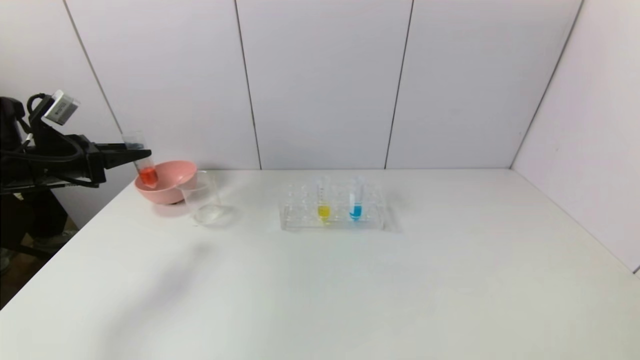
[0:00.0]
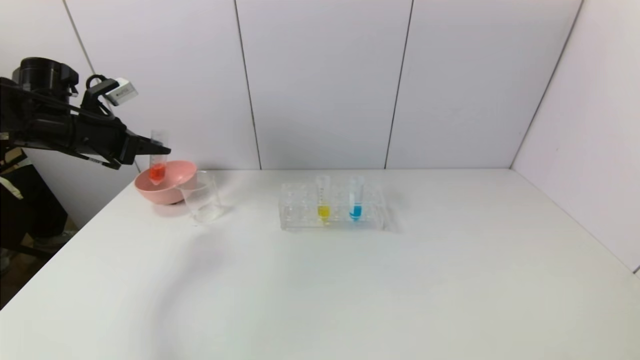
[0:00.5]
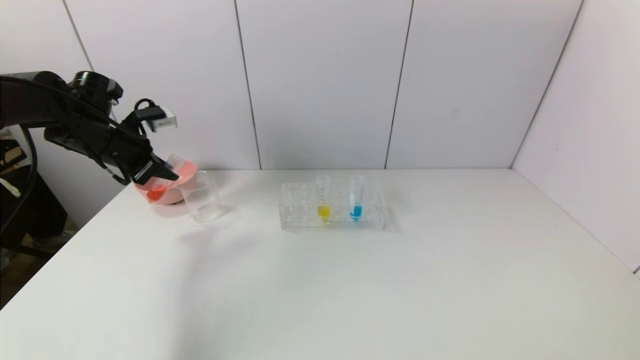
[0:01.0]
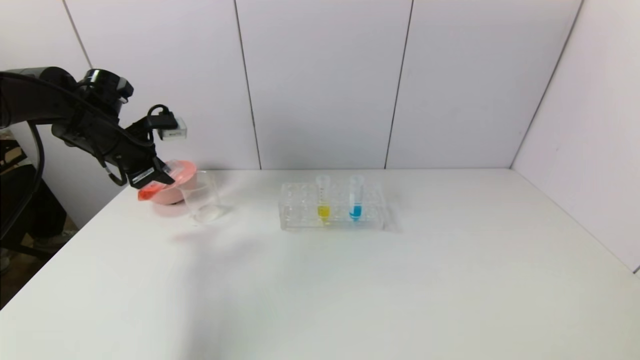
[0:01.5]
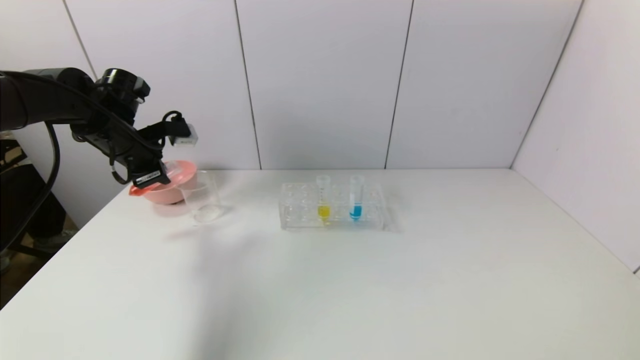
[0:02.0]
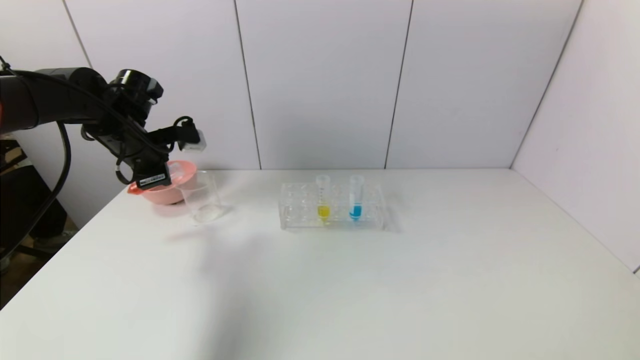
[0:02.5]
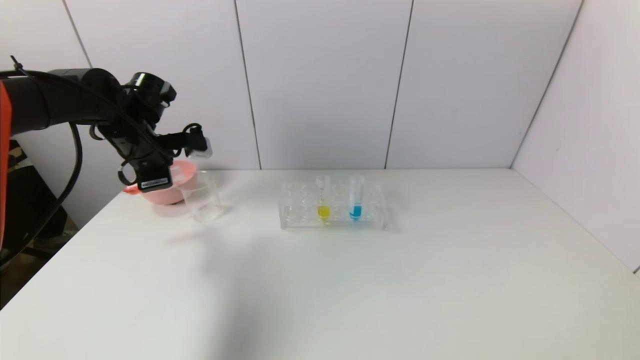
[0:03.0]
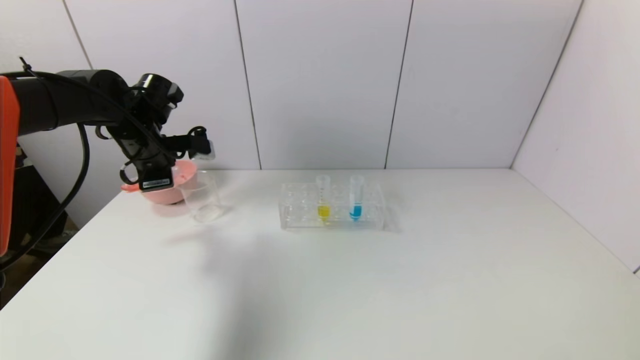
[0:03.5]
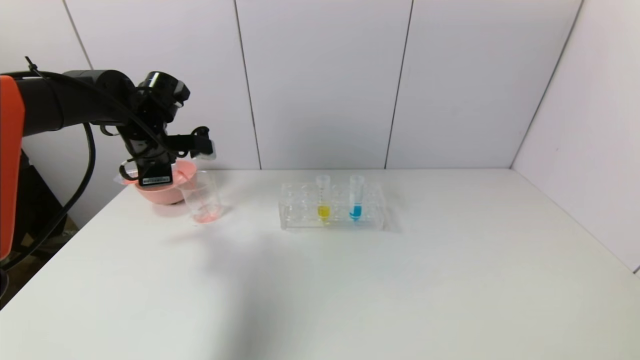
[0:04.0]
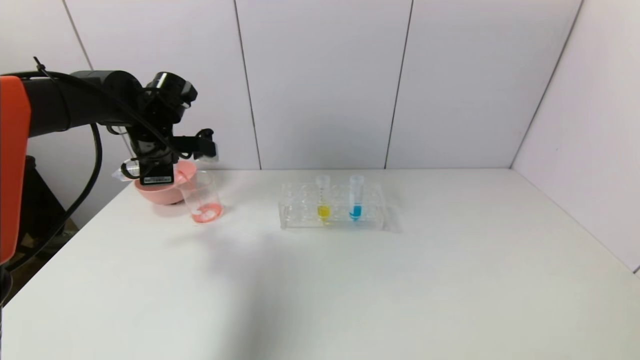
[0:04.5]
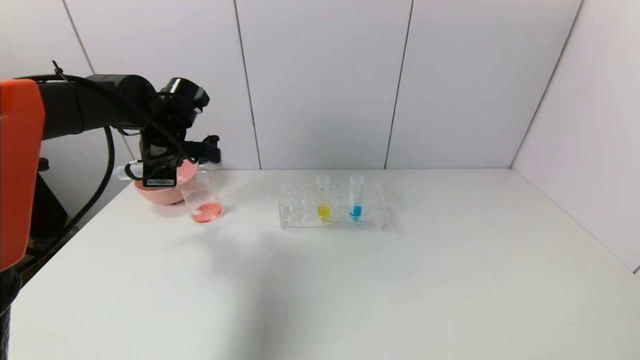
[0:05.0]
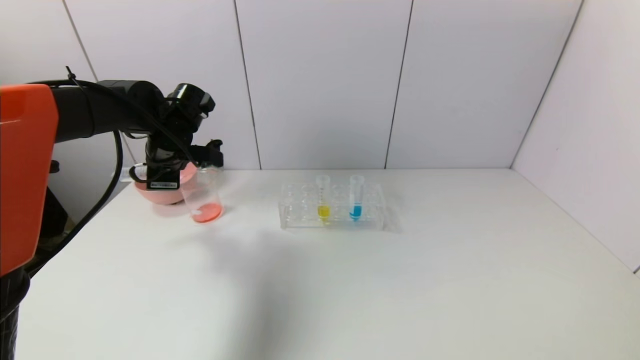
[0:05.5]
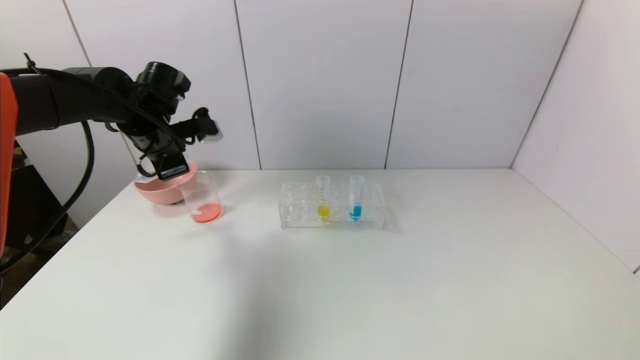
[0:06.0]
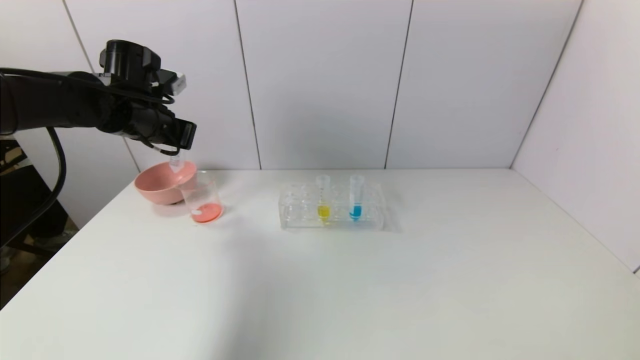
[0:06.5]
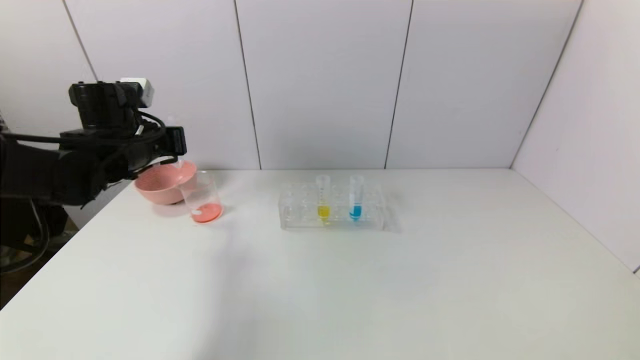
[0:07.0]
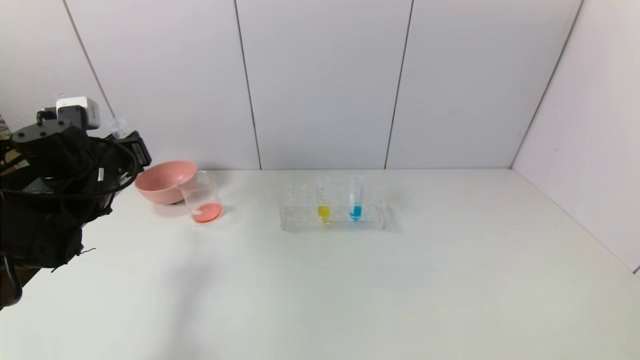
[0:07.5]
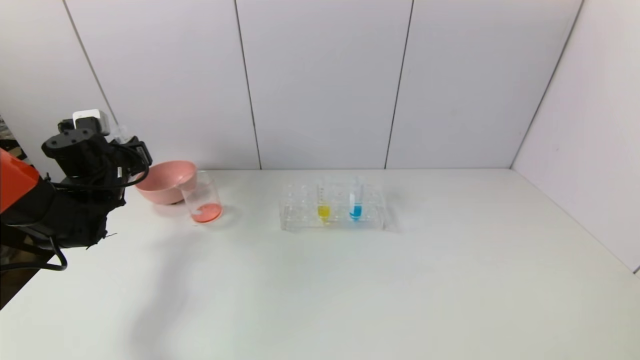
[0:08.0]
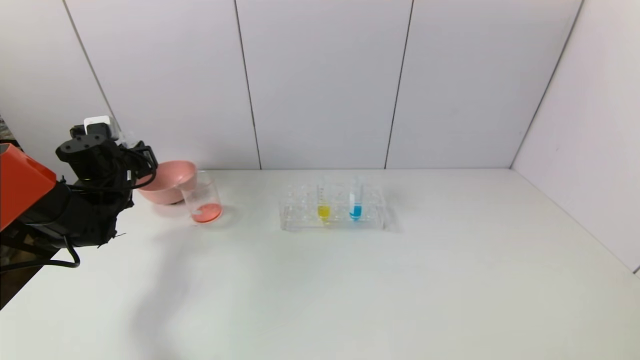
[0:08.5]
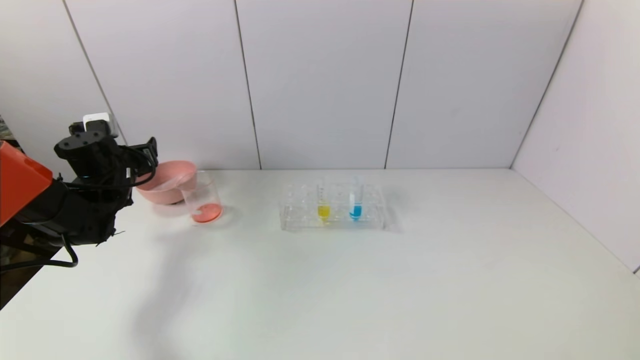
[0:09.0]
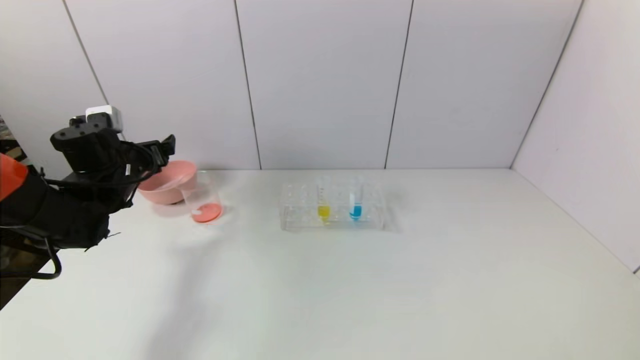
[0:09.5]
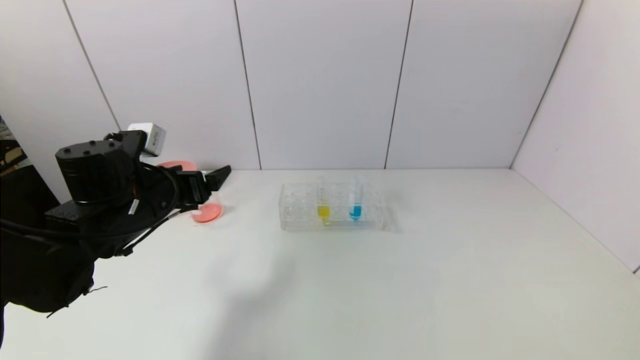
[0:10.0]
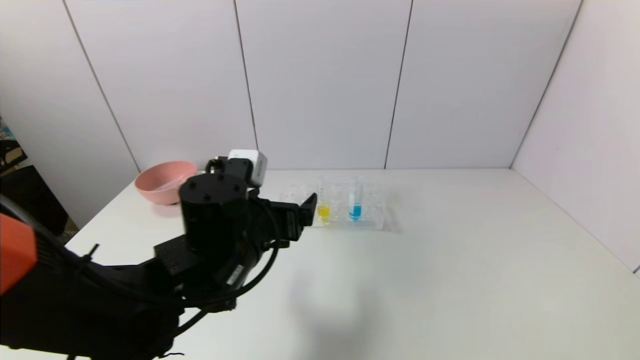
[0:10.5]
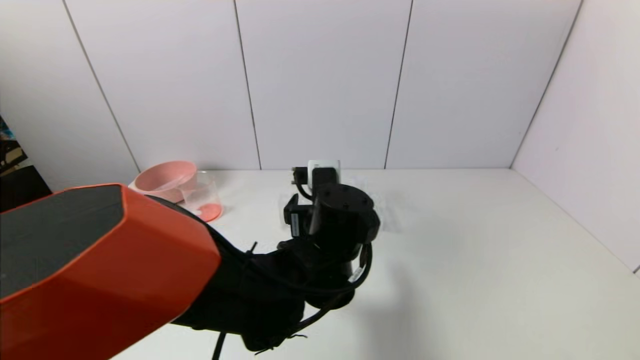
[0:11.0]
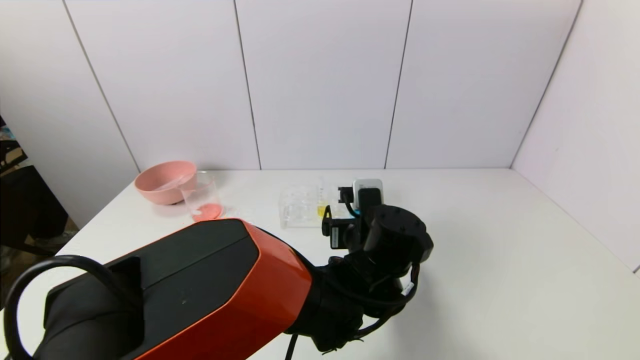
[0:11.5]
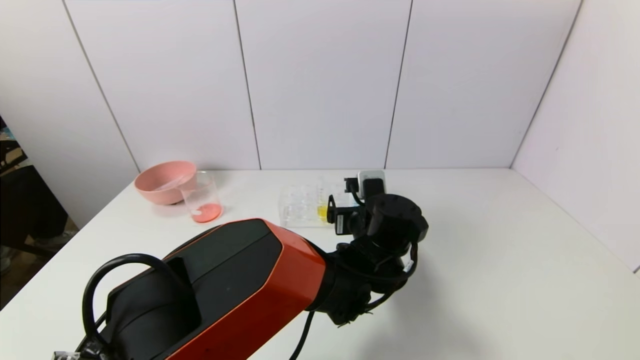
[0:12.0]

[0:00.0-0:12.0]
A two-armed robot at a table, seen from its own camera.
Task of the whole recording: pick up the test tube with red pigment and the test tube with blue pigment by grippers and pour them into the container.
Step, 0:00.0 to 0:05.5: Pour the red reagent into the graduated cylinder with the left gripper.
Step, 0:06.0 to 0:08.5: Place the test tube into the bowl with the left gripper.
0:00.0 to 0:02.0: The left gripper goes about 10 cm to the right and forward.
0:04.0 to 0:06.0: The grippers stay close to where they were, moving slightly.
0:06.0 to 0:08.0: The left gripper goes approximately 15 cm to the left and downward.
0:08.0 to 0:10.0: The left gripper shifts about 15 cm to the right and backward, and opens up.
0:10.0 to 0:12.0: The left gripper goes roughly 30 cm to the right.

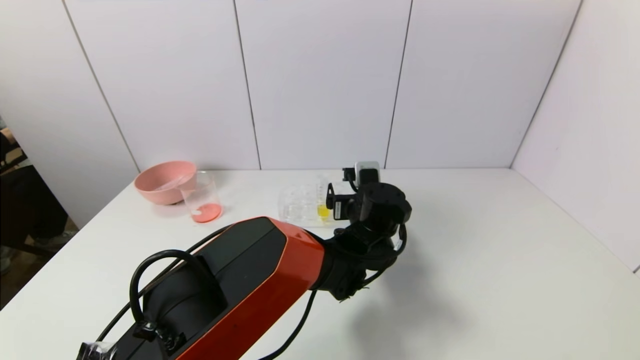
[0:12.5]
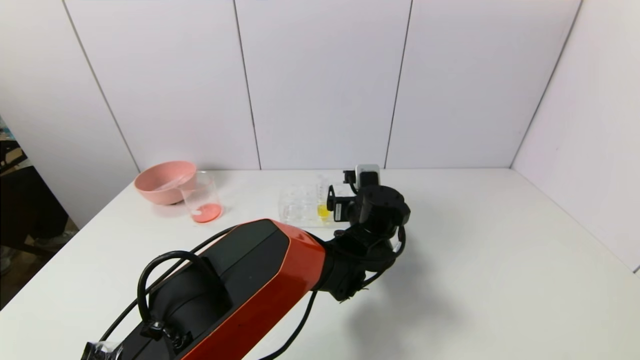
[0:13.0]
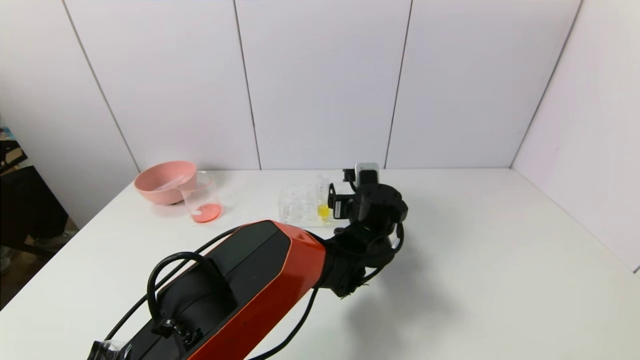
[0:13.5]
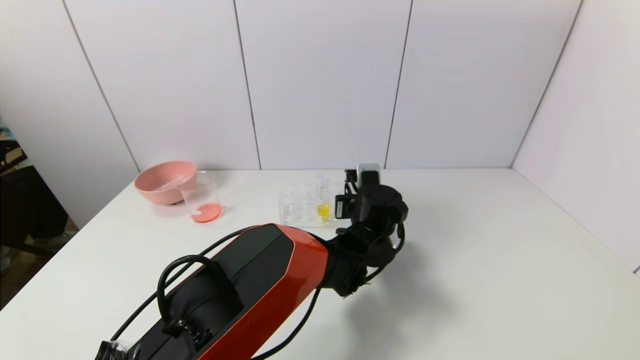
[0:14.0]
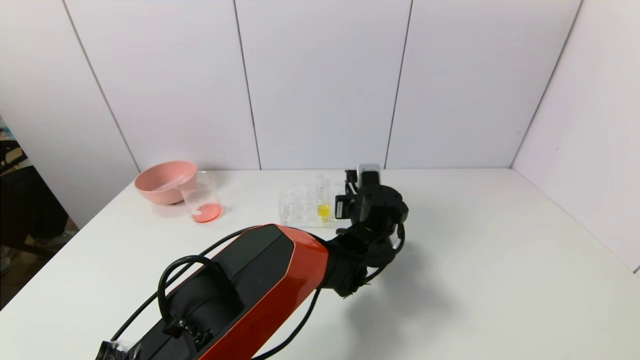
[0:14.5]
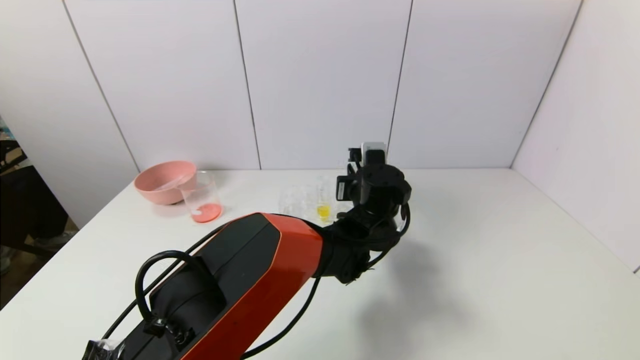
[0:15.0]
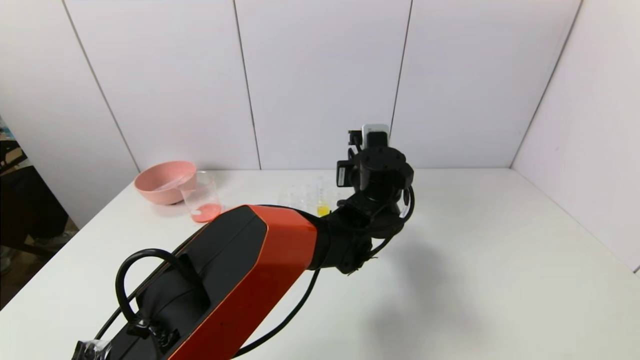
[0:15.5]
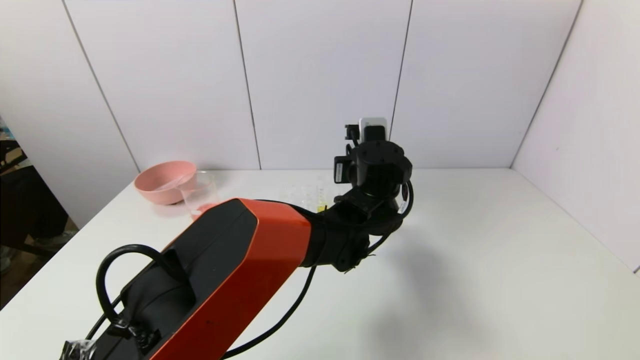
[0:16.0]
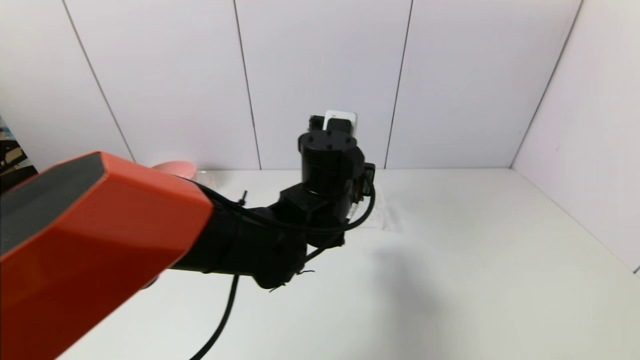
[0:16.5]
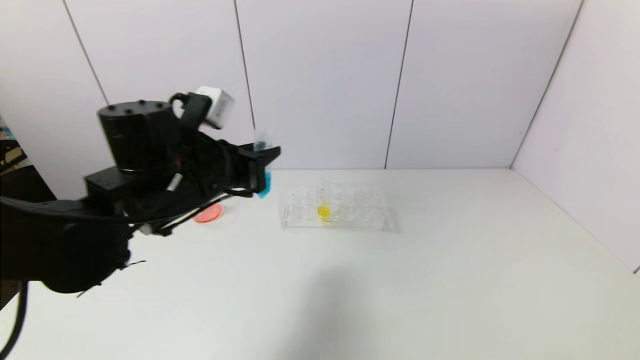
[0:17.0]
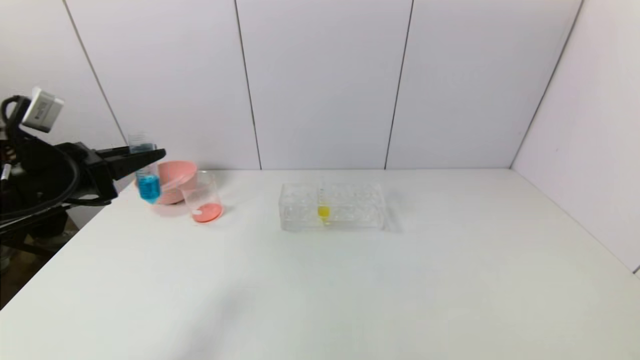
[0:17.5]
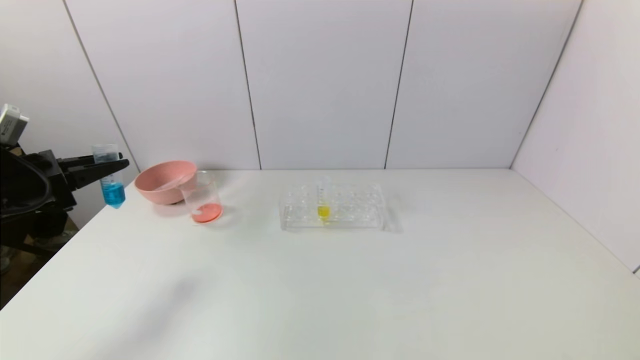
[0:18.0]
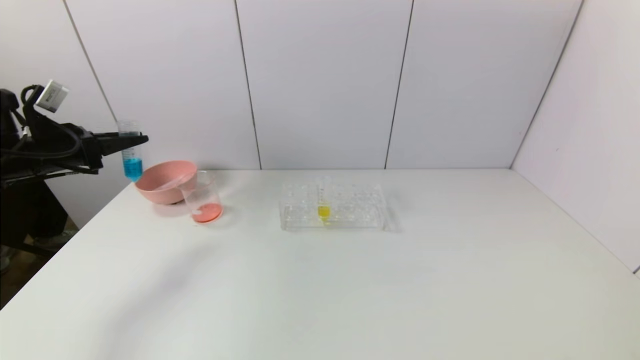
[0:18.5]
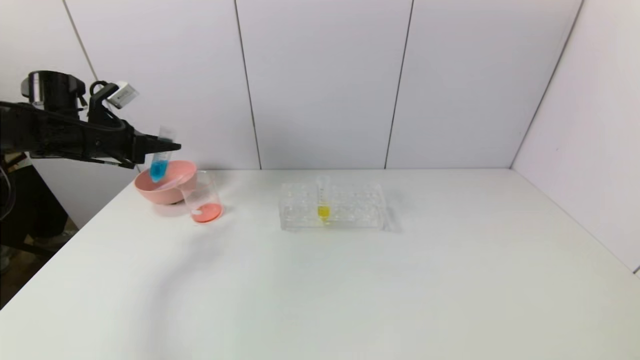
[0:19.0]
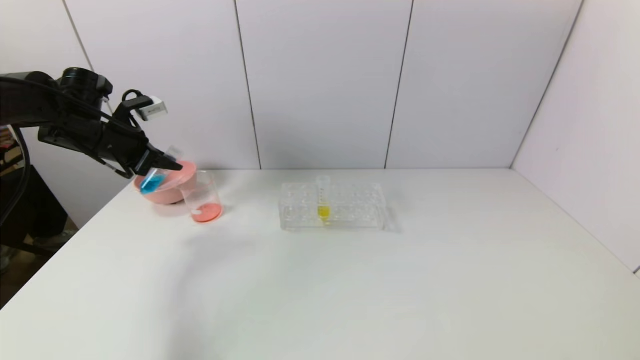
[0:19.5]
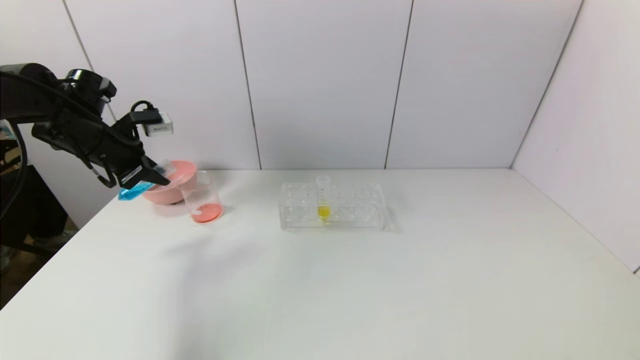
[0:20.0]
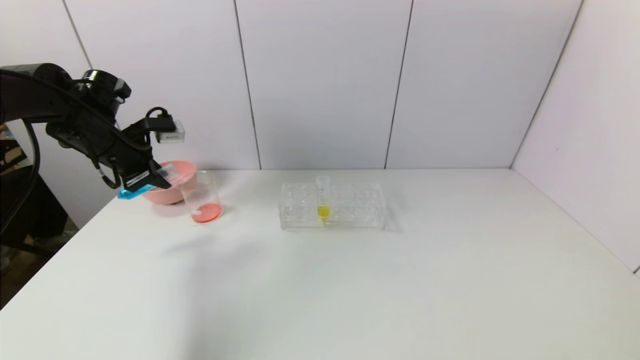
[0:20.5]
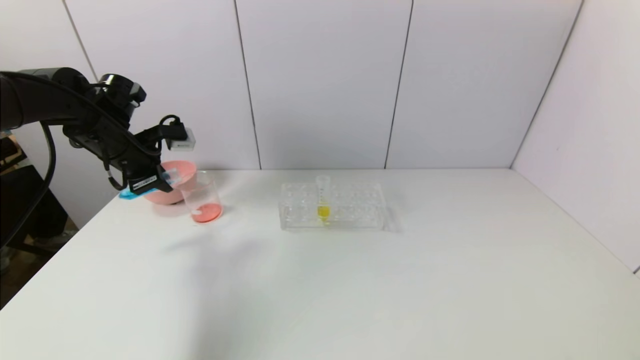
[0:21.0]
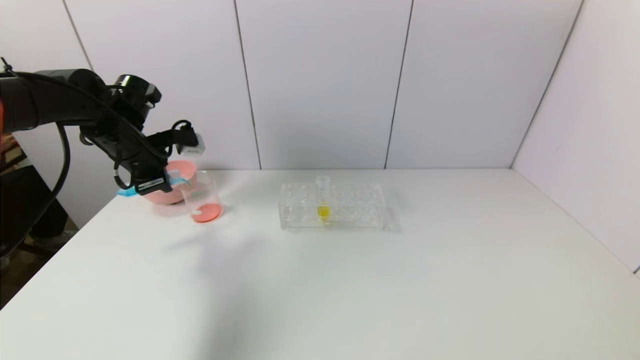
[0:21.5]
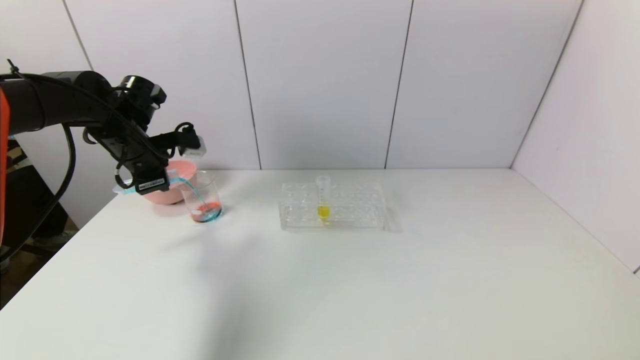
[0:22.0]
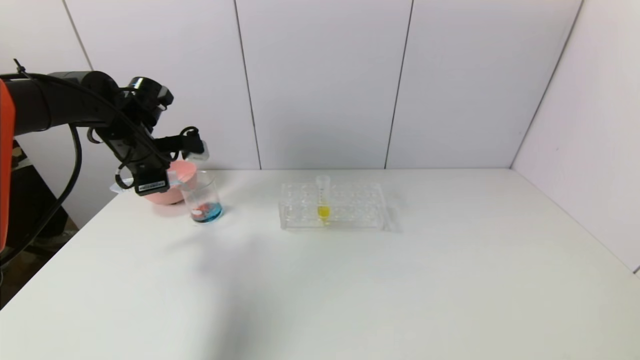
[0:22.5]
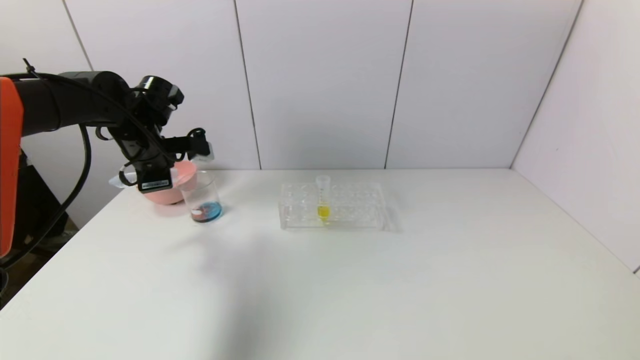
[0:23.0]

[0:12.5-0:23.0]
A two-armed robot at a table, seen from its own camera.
Task of the whole recording: pick up the test tube with red pigment and the test tube with blue pigment by grippers and pour them into the container.
0:12.5 to 0:14.5: The left gripper closes its fingers.
0:14.5 to 0:16.5: The left gripper shifts approximately 15 cm upward, to the left and backward.
0:16.5 to 0:19.0: The left gripper heads to the left, covering about 40 cm.
0:19.0 to 0:21.0: The left gripper is displaced to the right by some 5 cm.
